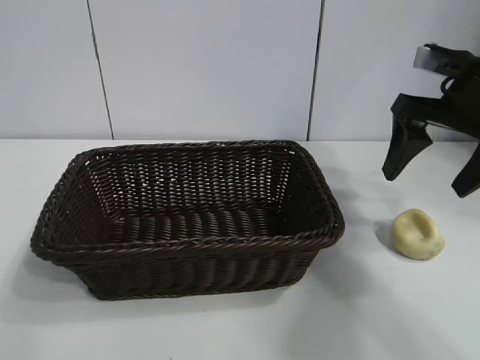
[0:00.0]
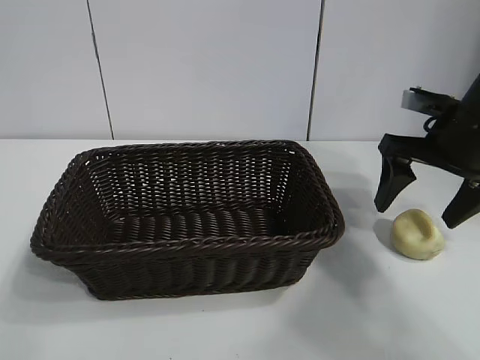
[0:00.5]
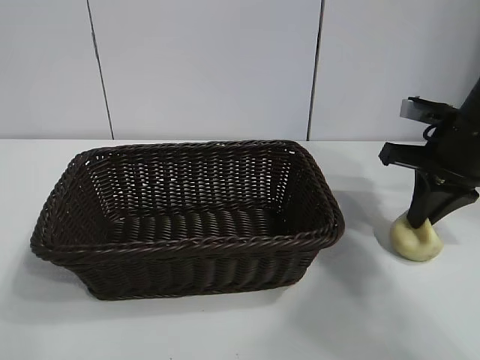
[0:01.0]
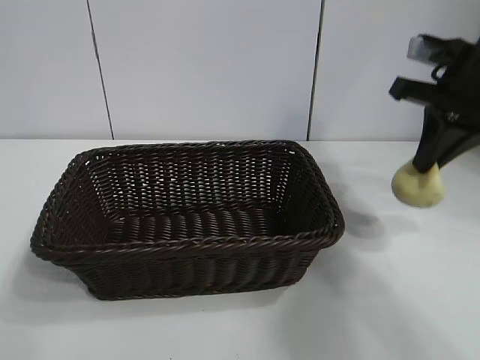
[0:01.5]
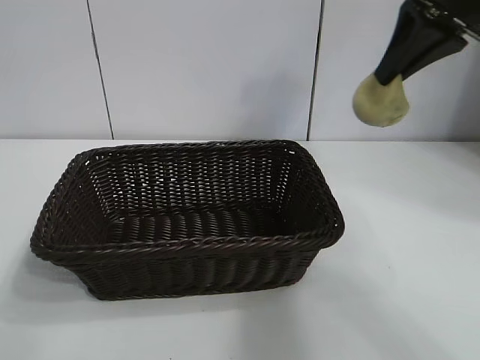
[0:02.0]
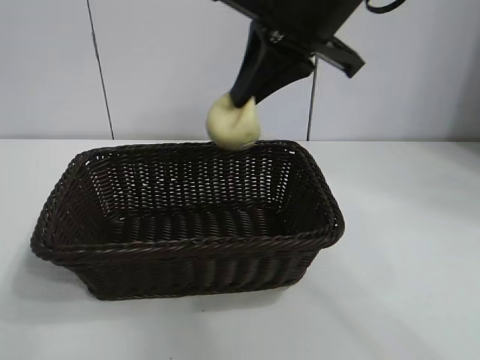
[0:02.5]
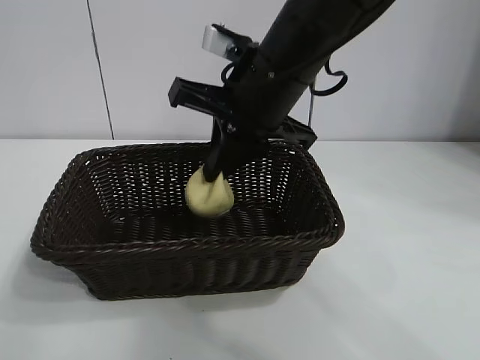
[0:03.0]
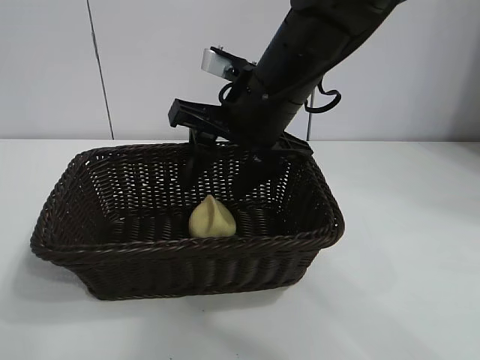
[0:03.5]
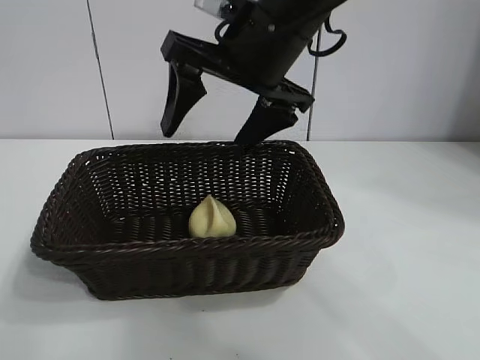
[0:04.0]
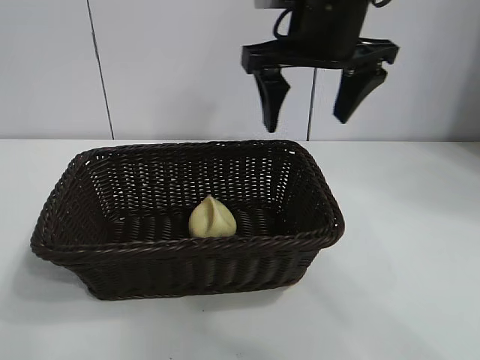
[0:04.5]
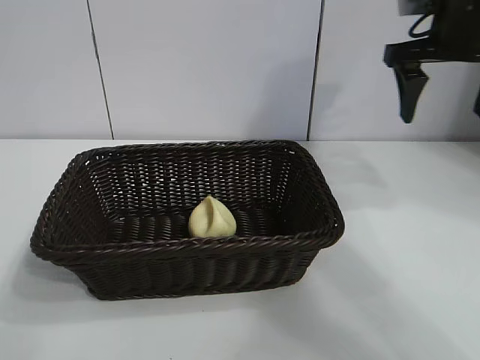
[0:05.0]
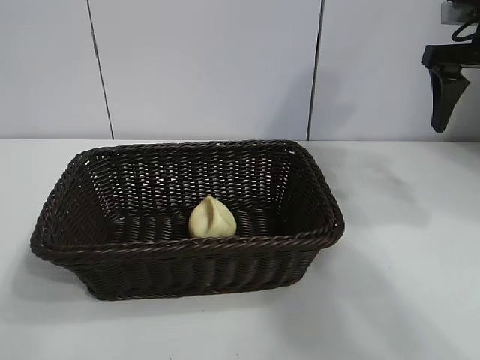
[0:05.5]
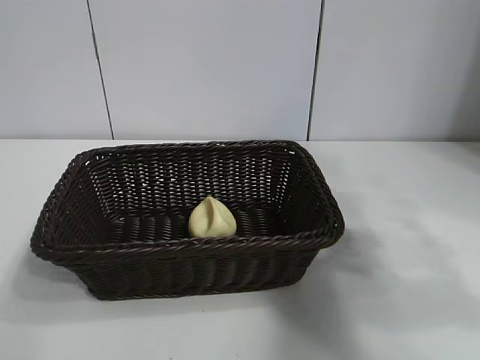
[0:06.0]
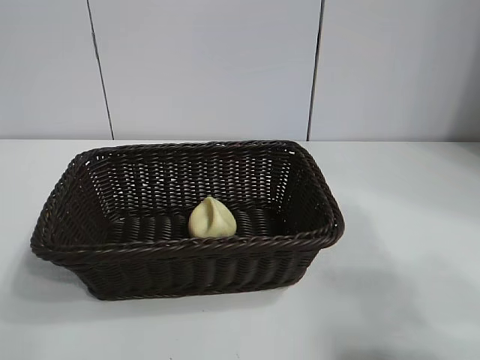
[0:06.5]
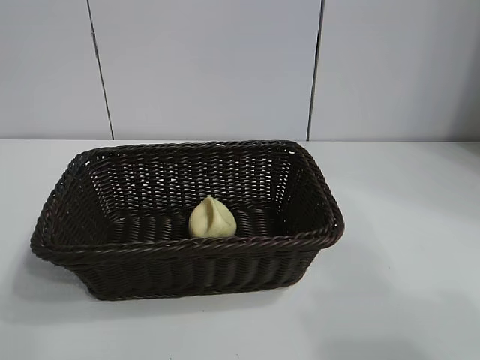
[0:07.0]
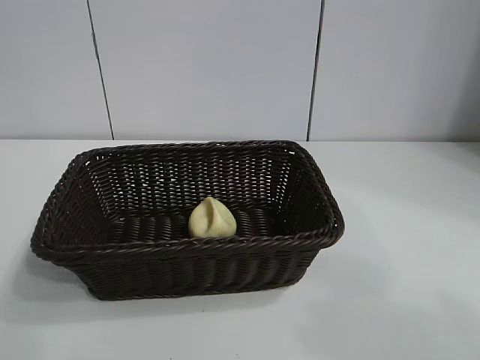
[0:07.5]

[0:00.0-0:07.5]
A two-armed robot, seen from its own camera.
Task of the whole recording: pick up the egg yolk pastry and put it into the basket.
Step, 0:01.5 to 0:03.5: Place the egg yolk pastry in the basket with right gripper.
